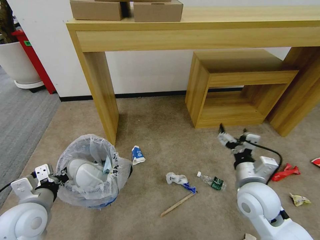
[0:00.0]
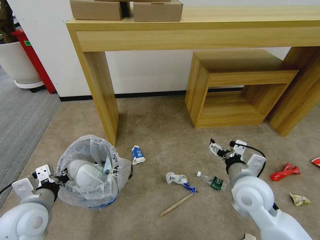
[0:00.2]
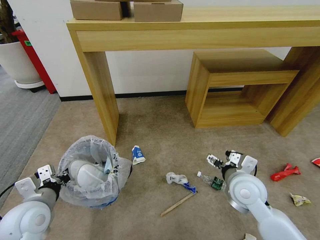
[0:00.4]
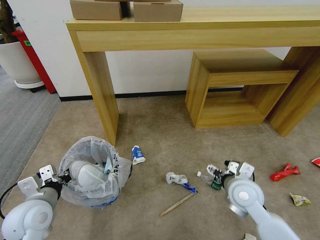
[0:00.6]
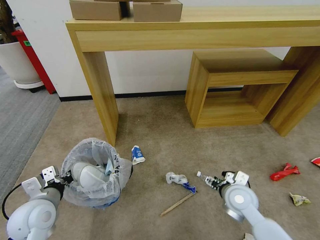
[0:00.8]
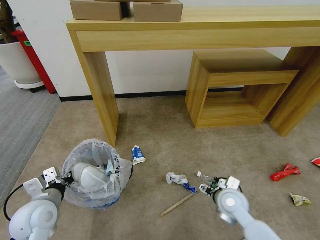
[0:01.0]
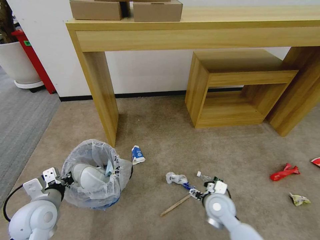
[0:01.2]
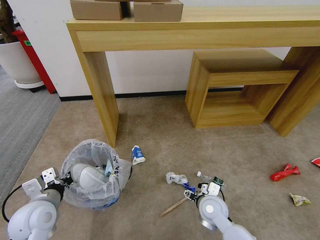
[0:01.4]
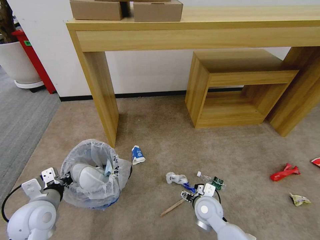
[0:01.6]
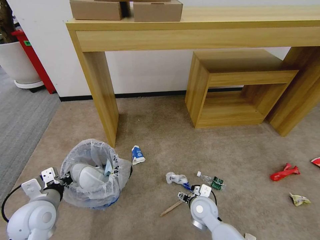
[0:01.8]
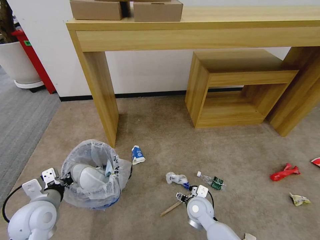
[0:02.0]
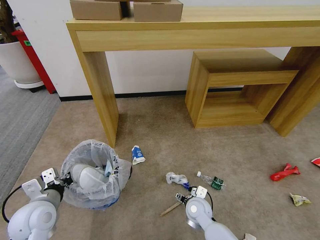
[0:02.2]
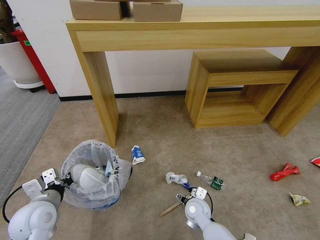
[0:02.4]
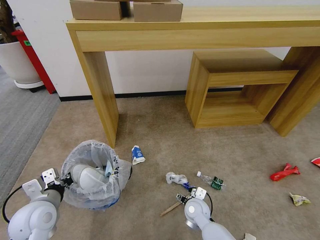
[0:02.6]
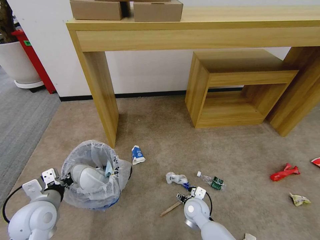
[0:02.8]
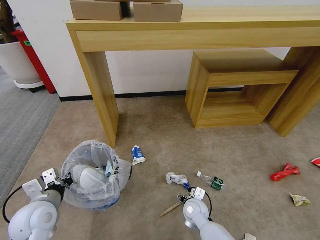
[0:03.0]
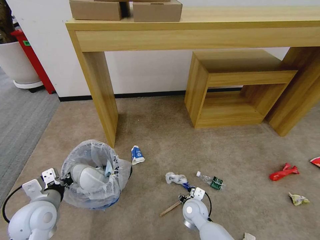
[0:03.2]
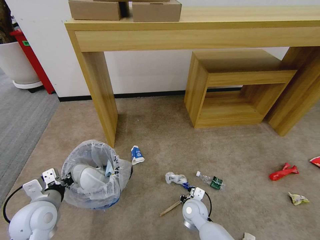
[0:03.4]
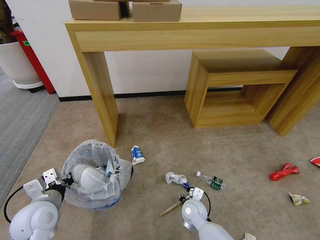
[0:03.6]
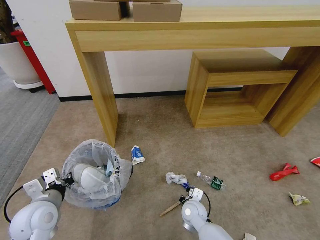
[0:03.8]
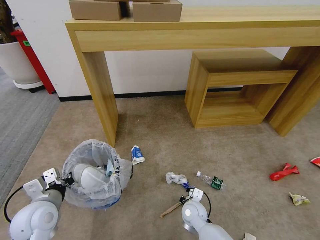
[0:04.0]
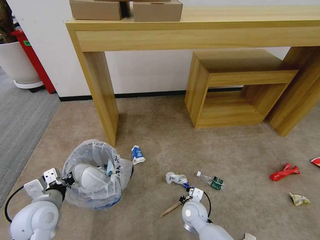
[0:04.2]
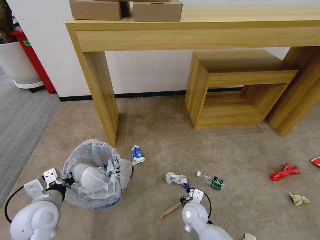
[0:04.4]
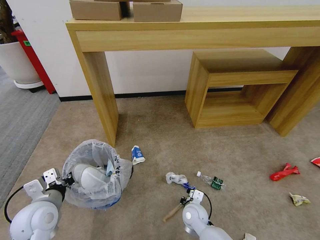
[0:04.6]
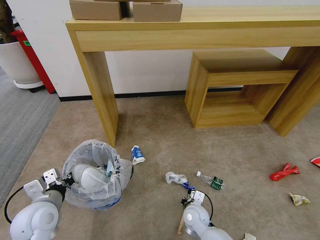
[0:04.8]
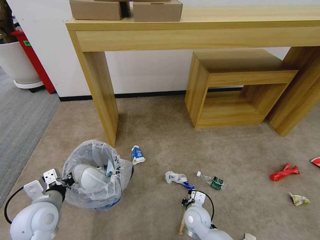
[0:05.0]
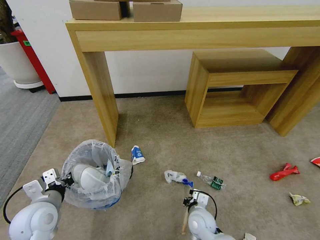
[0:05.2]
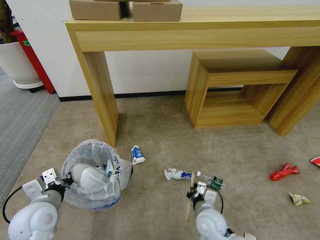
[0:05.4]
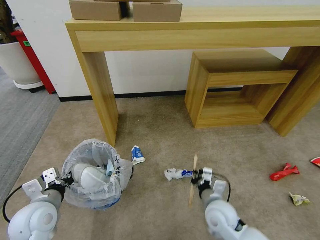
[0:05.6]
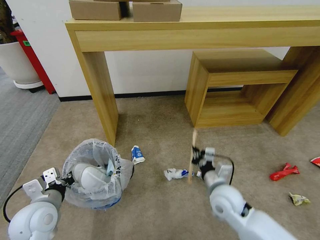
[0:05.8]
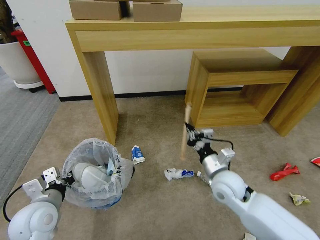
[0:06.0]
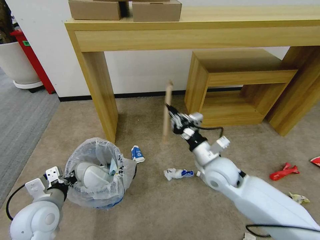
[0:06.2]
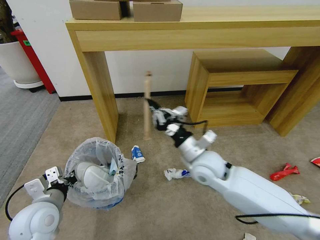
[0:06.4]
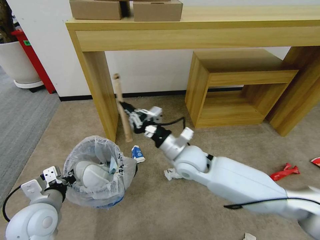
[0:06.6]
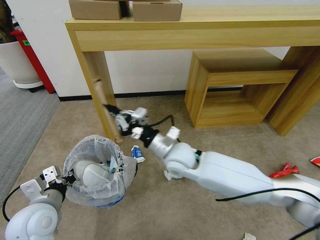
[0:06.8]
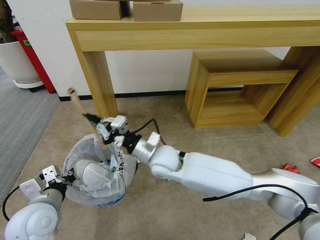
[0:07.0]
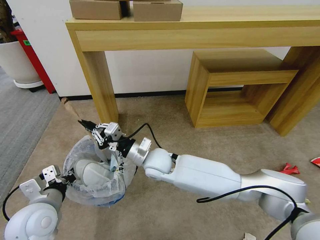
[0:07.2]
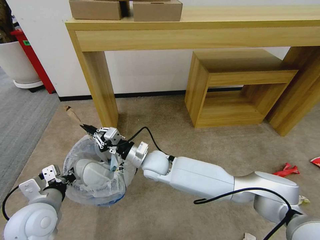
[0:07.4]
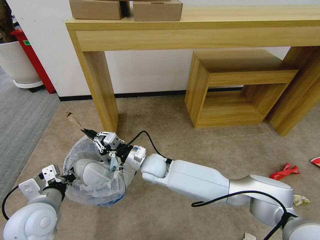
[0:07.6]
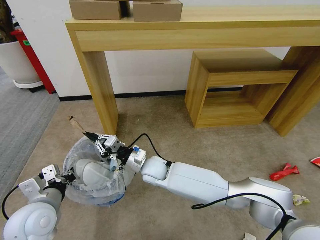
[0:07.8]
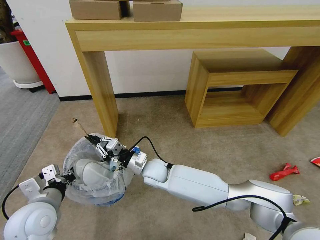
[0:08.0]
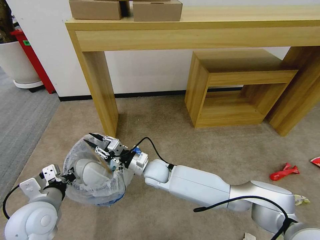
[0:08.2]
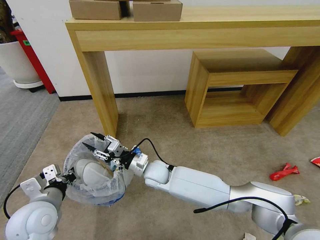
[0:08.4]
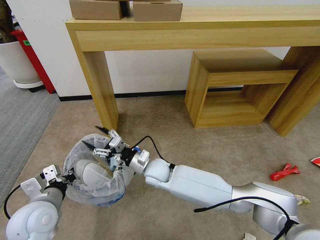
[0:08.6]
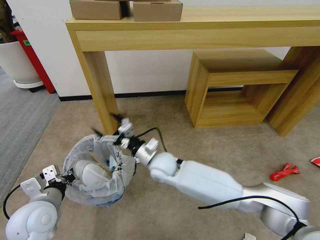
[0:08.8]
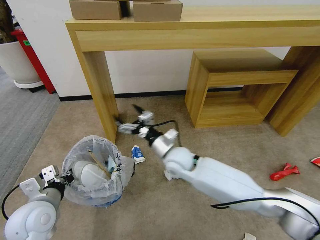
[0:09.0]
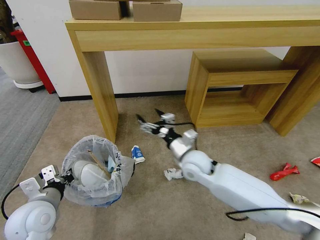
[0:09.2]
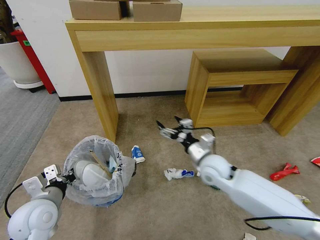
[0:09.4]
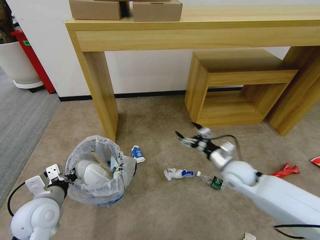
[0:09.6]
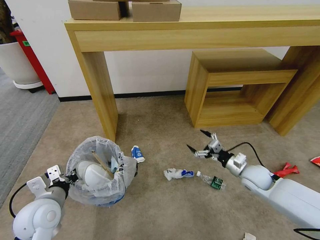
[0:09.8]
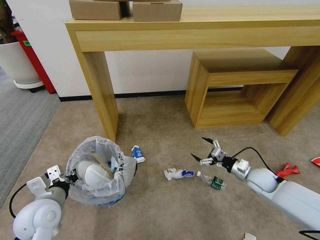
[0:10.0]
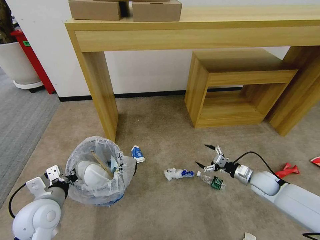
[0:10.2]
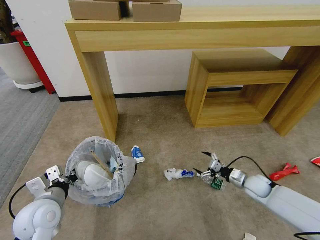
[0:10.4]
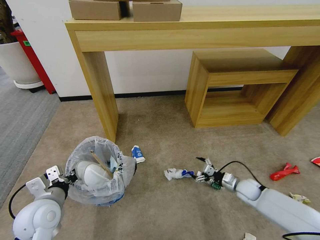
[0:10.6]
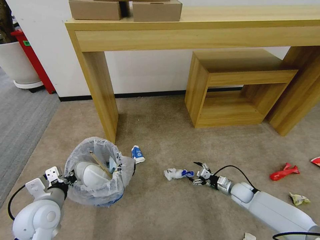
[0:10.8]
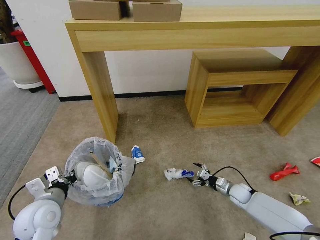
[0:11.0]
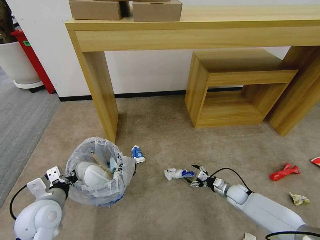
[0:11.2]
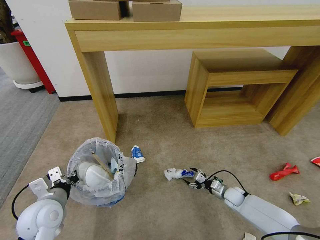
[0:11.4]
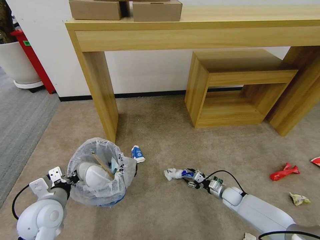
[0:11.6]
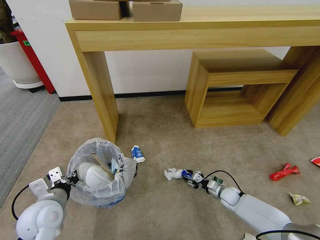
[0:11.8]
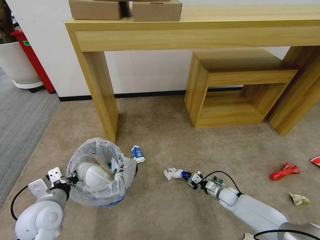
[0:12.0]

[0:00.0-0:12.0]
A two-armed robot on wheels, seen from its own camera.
Task of the whole recording: Pick up the trash bin and place the garbage on the floor into it.
0:00.0 to 0:01.6: The right gripper is displaced downward and to the left by about 20 cm.
0:01.6 to 0:03.0: The right gripper moves downward, approximately 5 cm.
0:03.0 to 0:04.4: The right gripper closes its fingers.
0:04.4 to 0:06.0: The right gripper goes about 20 cm upward.
0:06.0 to 0:07.6: The right gripper is displaced to the left by approximately 25 cm.
0:07.6 to 0:09.0: The right gripper shifts by roughly 5 cm, and opens up.
0:09.0 to 0:10.4: The right gripper moves to the right, some 35 cm.
0:10.4 to 0:12.0: The right gripper shifts about 15 cm downward and to the left, and closes up.

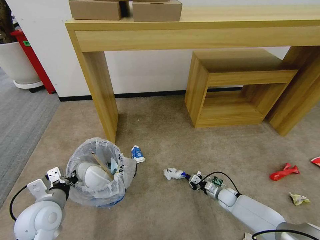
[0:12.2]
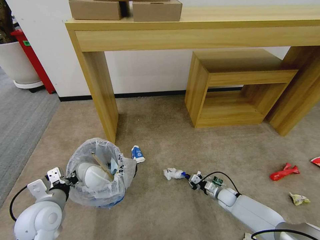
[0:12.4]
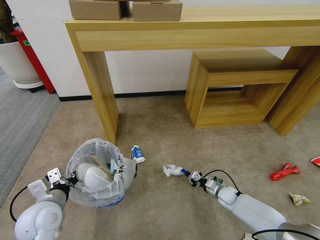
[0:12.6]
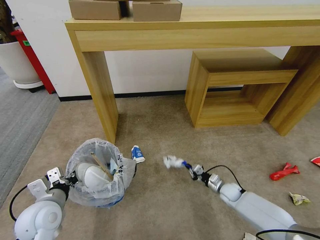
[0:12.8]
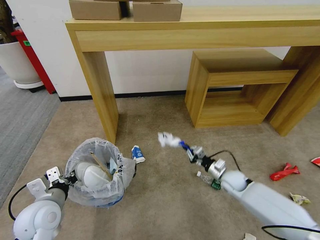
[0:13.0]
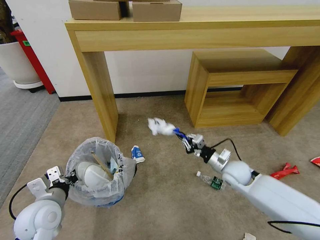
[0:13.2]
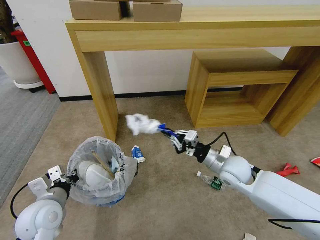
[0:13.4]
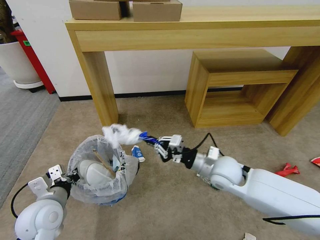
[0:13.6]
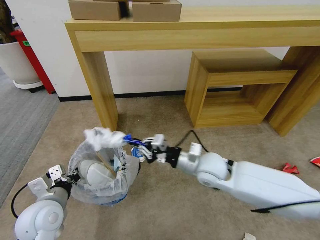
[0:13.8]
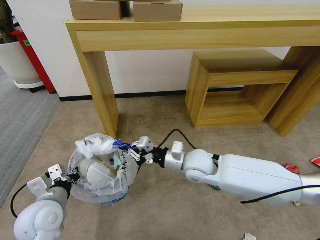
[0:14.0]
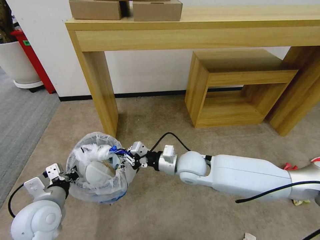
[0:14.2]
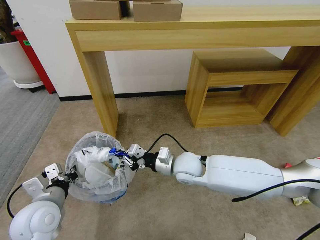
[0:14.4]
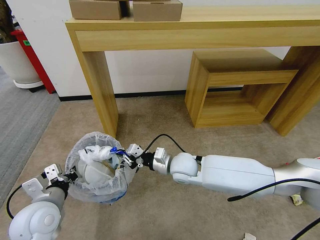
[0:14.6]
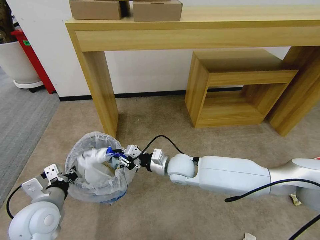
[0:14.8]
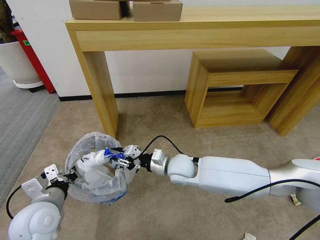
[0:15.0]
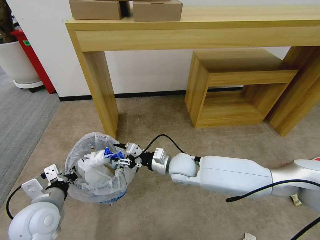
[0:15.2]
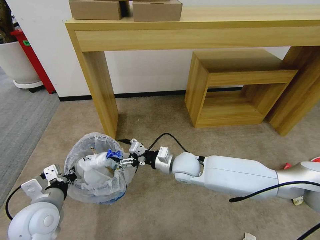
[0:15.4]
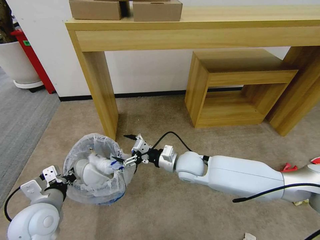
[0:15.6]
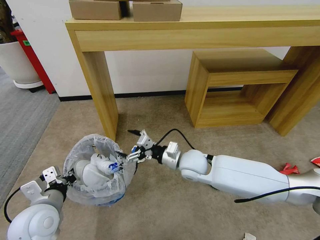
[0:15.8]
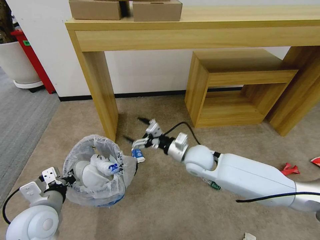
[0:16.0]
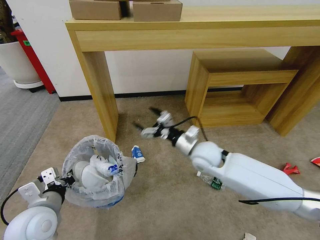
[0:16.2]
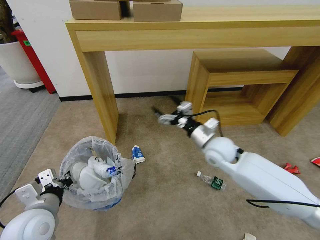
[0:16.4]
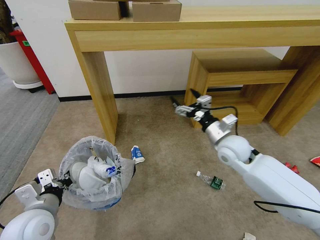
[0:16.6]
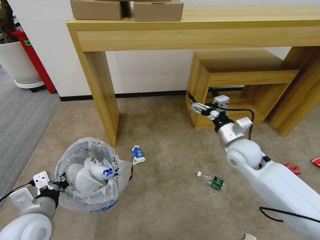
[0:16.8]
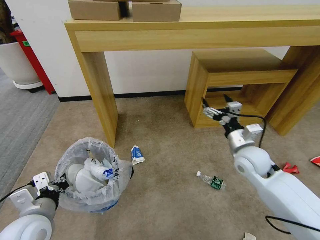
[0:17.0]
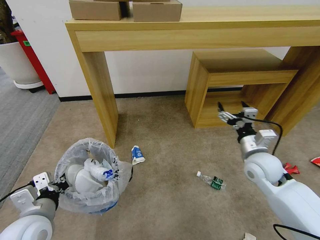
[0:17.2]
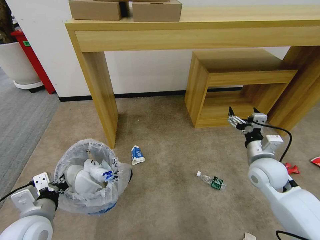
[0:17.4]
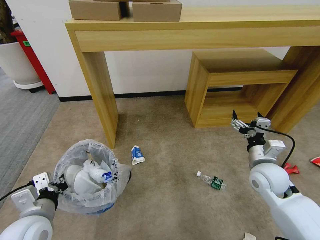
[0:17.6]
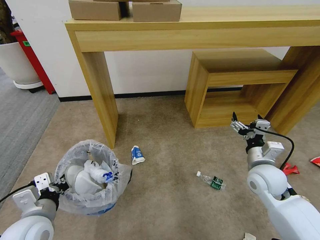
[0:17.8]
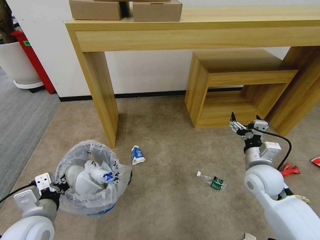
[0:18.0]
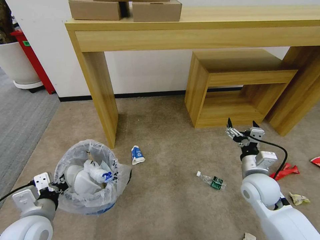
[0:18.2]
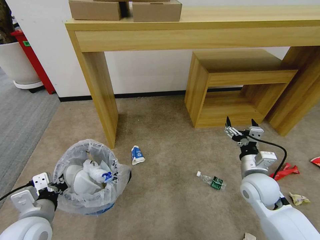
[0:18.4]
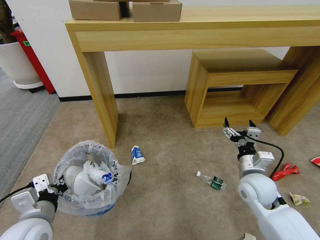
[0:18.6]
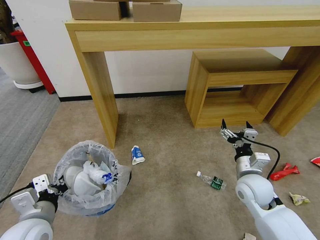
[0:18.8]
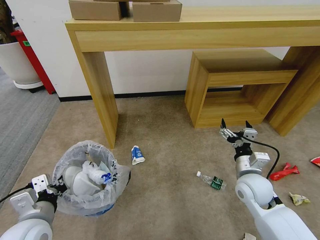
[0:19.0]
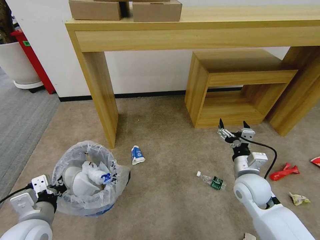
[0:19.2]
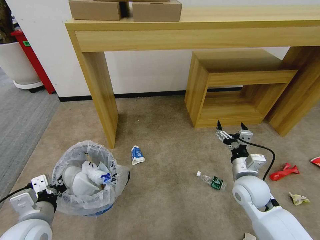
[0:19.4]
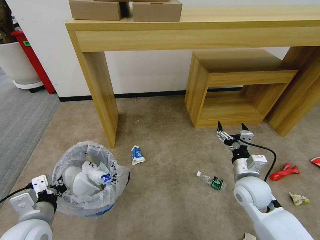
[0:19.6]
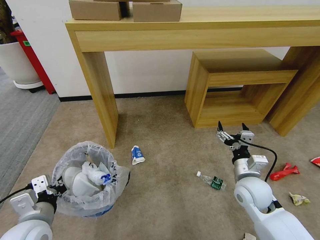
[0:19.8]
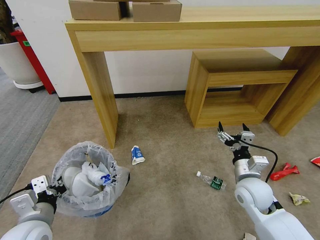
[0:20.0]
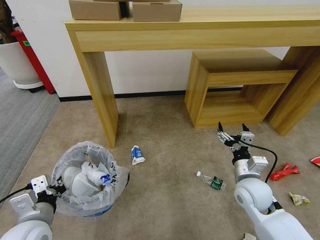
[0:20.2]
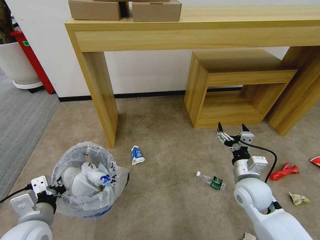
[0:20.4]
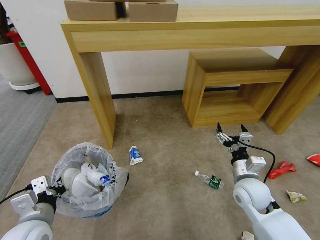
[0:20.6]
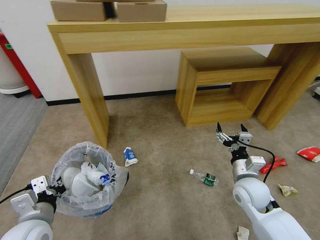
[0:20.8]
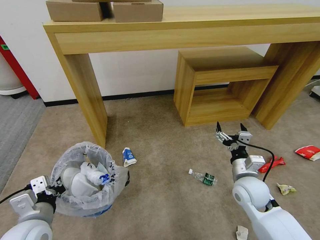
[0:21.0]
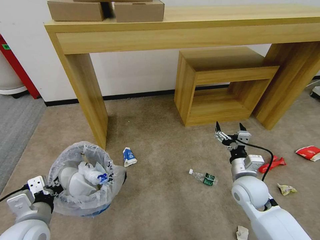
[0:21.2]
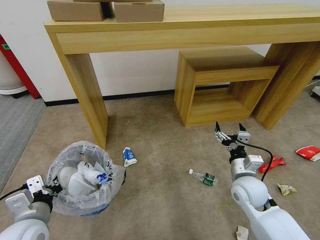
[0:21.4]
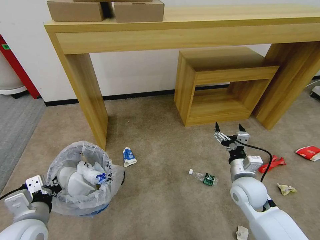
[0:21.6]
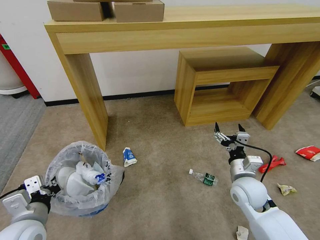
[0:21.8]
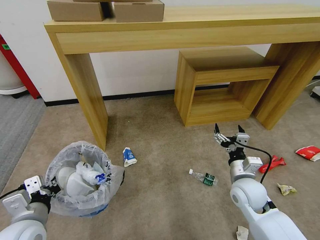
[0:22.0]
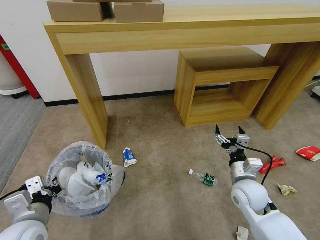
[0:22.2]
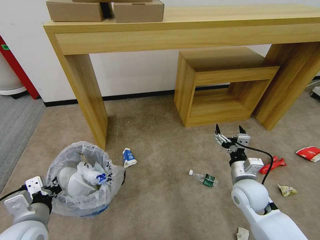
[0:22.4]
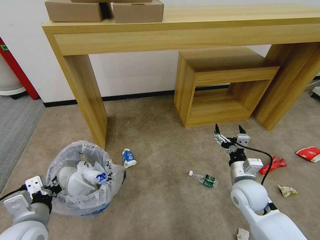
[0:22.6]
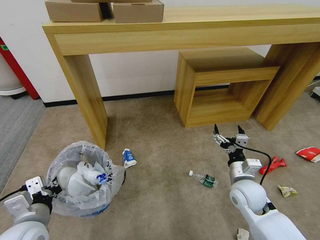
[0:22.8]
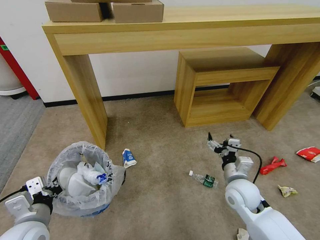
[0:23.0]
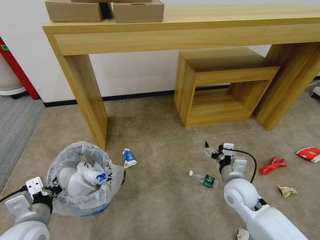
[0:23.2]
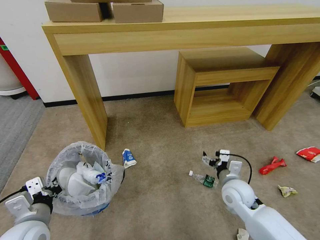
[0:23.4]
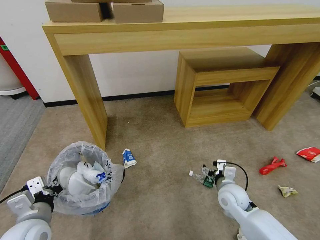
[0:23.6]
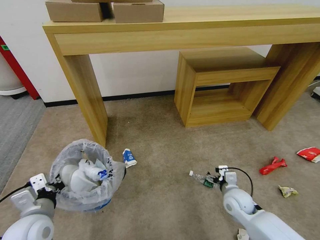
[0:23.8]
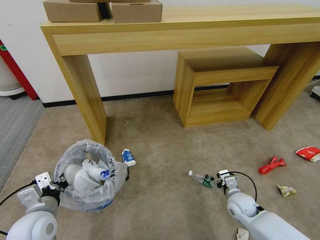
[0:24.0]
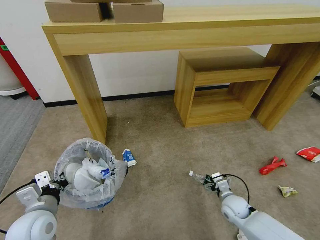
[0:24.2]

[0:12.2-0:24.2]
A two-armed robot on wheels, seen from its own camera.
Task of the whole recording: Pick up the trash bin and place the garbage on the floor into it.
0:12.2 to 0:13.8: The right gripper goes about 35 cm upward and to the left.
0:13.8 to 0:15.2: The right gripper goes about 10 cm to the left, and opens.
0:15.2 to 0:16.6: The right gripper is displaced to the right and upward by about 20 cm, and opens its fingers.
0:16.6 to 0:18.2: The right gripper goes roughly 15 cm backward, downward and to the right.
0:18.2 to 0:19.8: The grippers make only small movements.
0:21.2 to 0:22.6: The two grippers keep their place.
0:22.6 to 0:24.2: The right gripper is displaced downward by roughly 15 cm.
